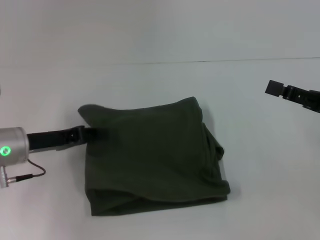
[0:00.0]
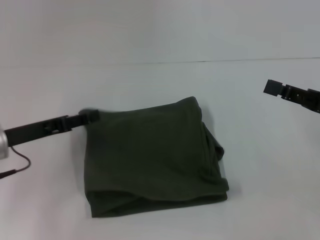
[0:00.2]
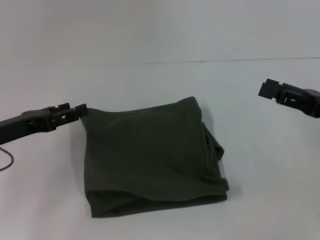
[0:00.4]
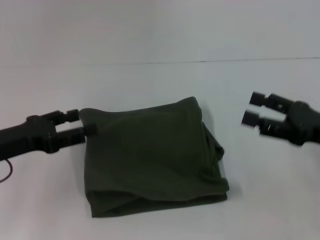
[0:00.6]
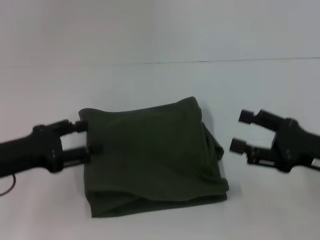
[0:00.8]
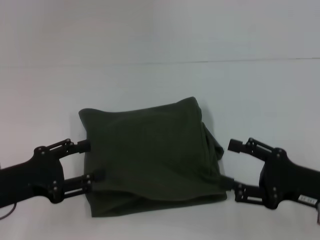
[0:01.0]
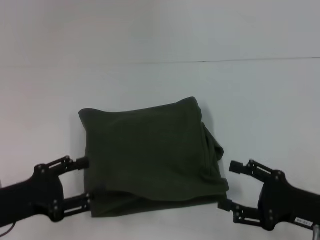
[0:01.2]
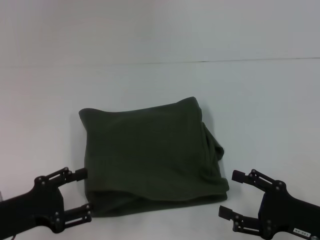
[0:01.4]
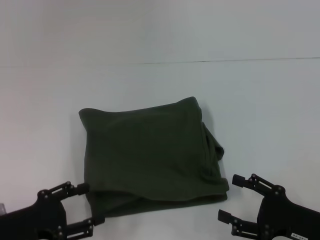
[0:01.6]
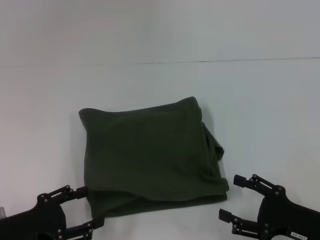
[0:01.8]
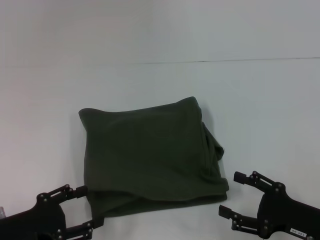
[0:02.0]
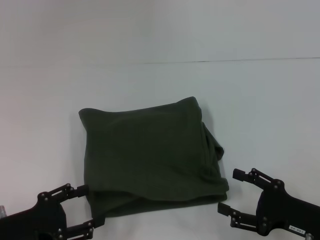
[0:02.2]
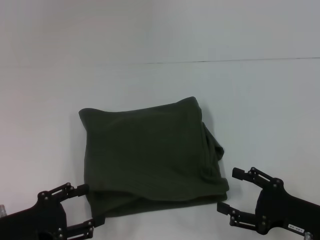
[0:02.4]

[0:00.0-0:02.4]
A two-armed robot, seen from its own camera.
0:00.0 to 0:01.2: The right gripper moves downward, backward and to the left, roughly 15 cm. The left gripper is displaced backward by about 10 cm, and opens.
0:01.2 to 0:02.4: The grippers make only small movements.

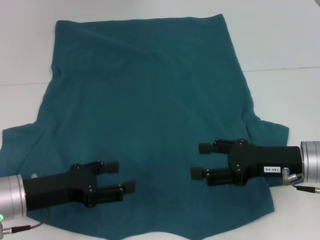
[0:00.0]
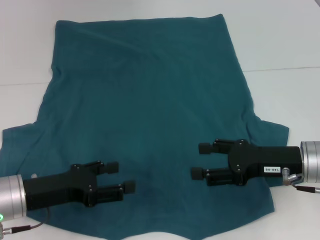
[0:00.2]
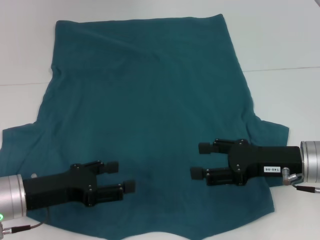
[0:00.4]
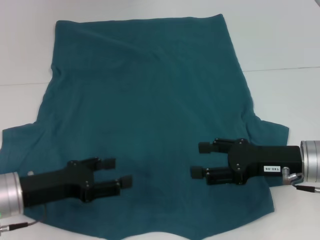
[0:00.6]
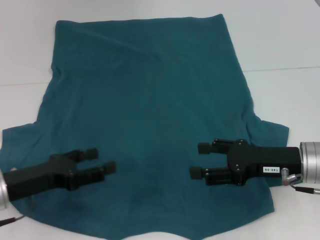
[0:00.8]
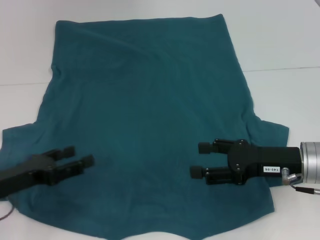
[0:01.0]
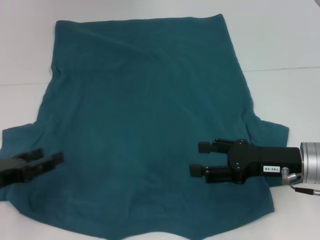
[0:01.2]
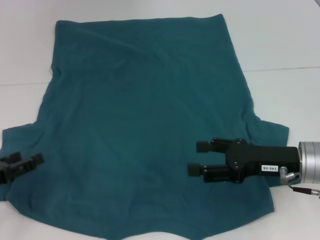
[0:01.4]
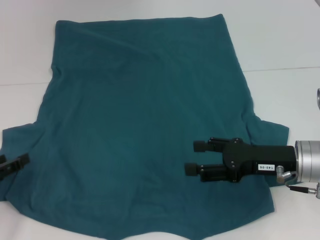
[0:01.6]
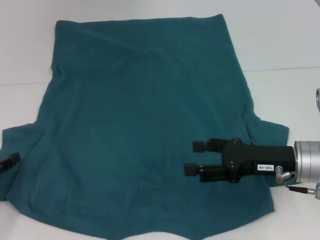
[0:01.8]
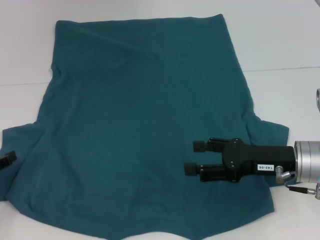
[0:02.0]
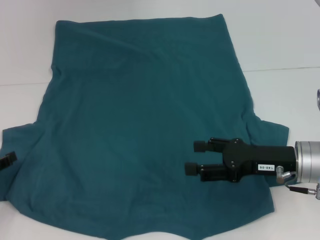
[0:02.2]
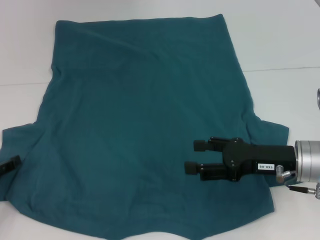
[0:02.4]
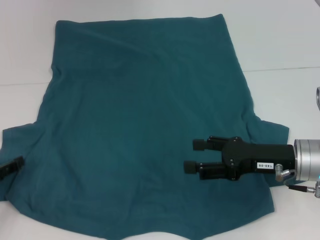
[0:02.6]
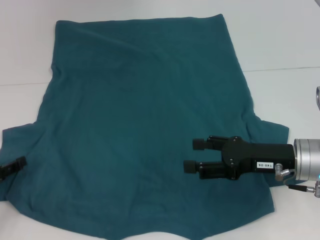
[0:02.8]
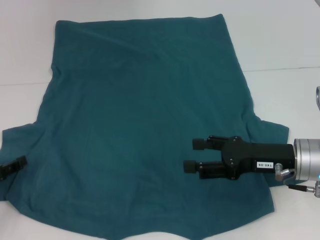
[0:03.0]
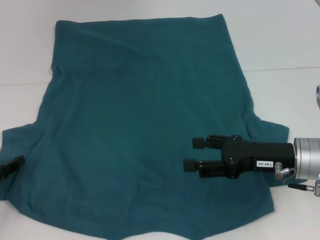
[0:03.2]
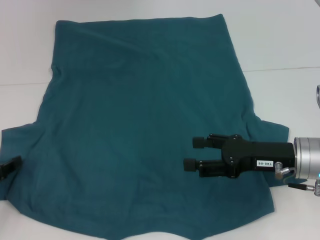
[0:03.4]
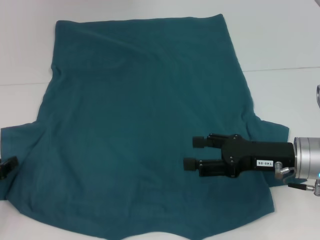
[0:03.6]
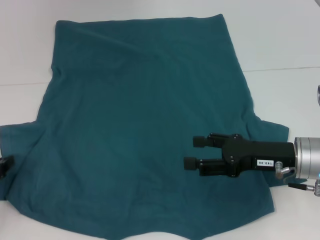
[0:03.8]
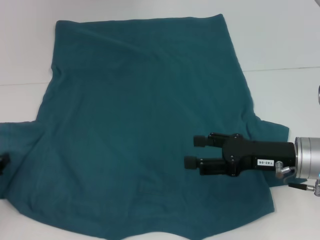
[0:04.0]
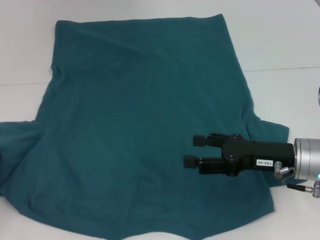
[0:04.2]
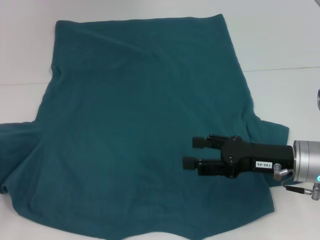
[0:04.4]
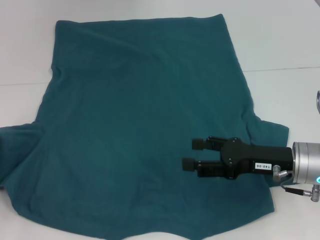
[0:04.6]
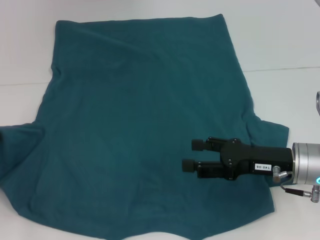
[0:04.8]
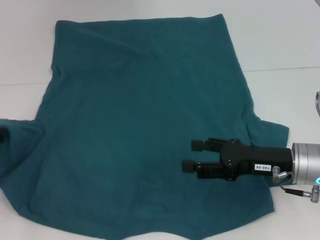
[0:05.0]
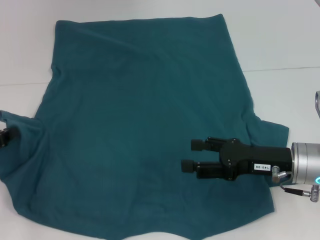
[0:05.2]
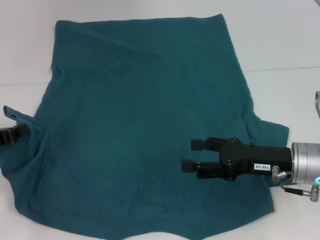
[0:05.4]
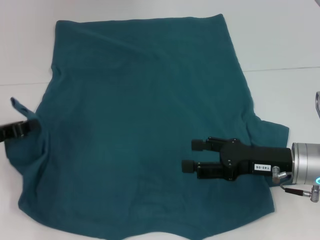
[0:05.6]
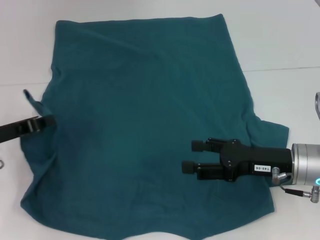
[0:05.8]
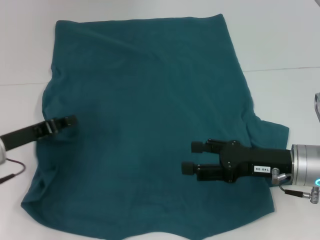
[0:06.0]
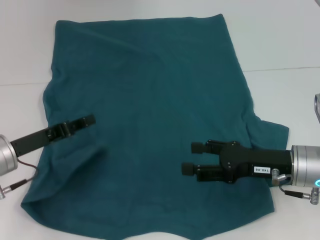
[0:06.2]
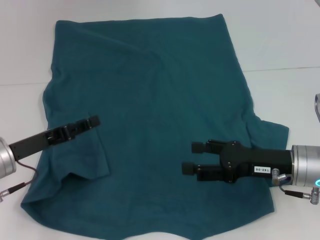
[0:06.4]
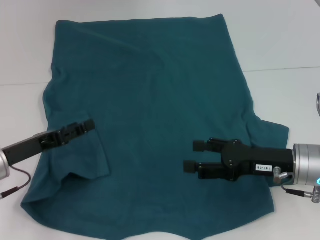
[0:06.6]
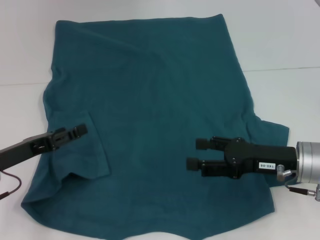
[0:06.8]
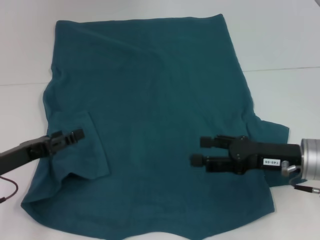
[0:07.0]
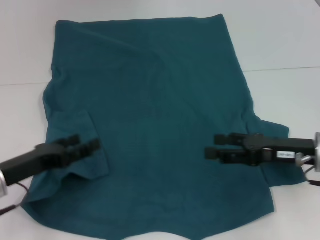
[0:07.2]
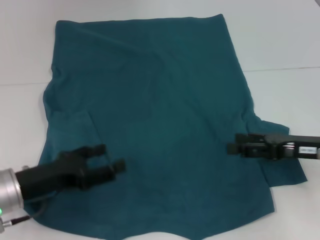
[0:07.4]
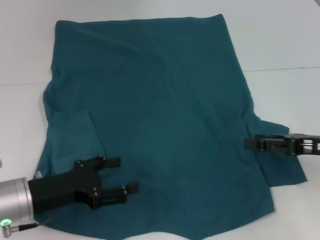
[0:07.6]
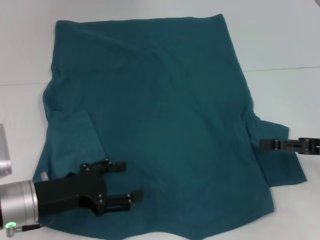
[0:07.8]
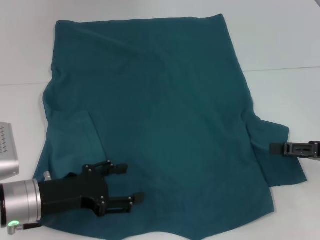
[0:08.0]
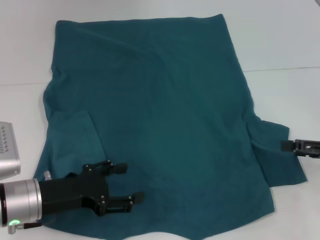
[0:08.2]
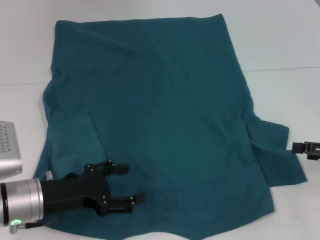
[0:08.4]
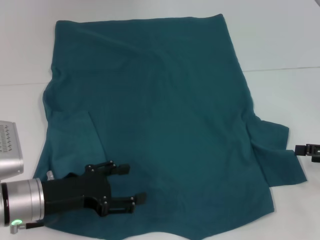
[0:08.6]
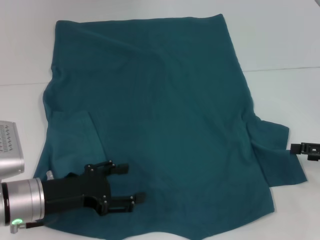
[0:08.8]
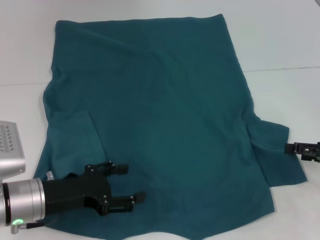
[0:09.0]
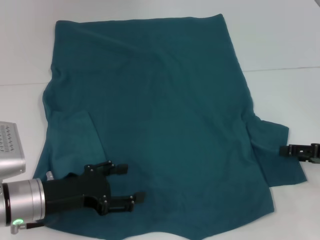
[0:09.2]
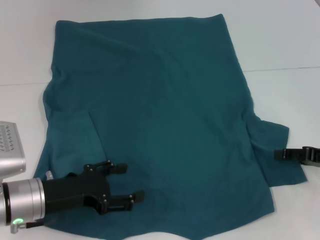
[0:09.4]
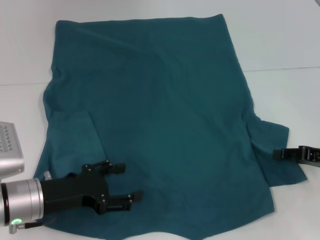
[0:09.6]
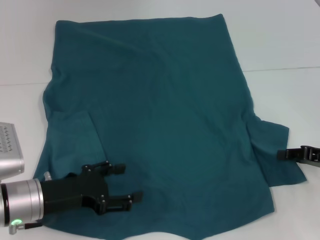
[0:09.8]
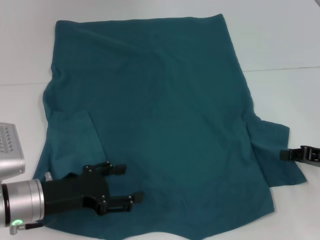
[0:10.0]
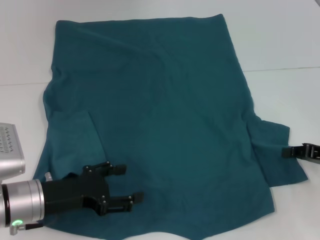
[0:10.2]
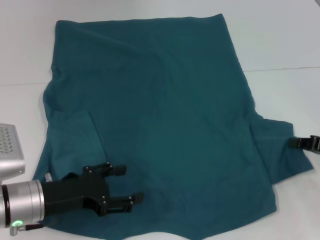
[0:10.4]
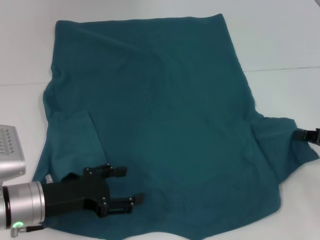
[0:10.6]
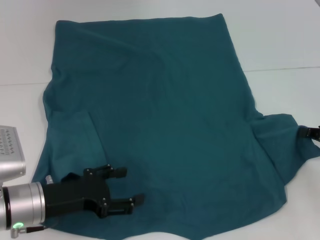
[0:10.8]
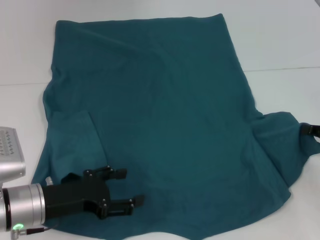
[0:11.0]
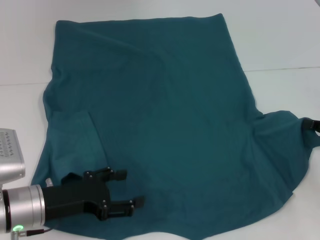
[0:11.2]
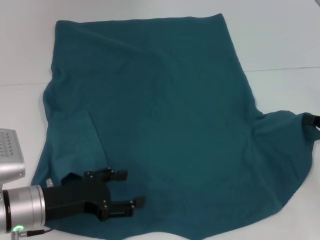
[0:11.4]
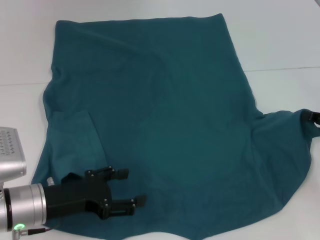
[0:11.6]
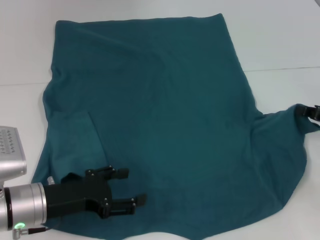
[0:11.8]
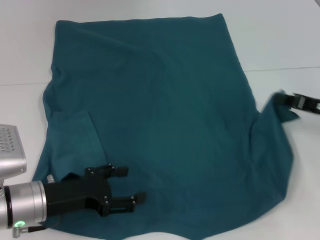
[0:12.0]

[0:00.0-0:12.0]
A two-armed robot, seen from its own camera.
Step, 0:00.0 to 0:06.2: Fold the bottom left sleeve with your left hand.
0:00.0 to 0:01.6: The left gripper goes about 10 cm to the left.
0:01.6 to 0:03.0: The grippers stay close to where they were, moving slightly.
0:03.0 to 0:04.4: The left gripper closes.
0:04.4 to 0:06.0: The left gripper heads to the right, covering some 10 cm.
0:06.0 to 0:07.6: The left gripper travels backward by approximately 5 cm, and opens its fingers; the right gripper travels to the right by roughly 10 cm.
0:07.6 to 0:09.0: The right gripper goes about 5 cm to the right.
0:09.0 to 0:10.4: The right gripper closes its fingers.
0:10.4 to 0:12.0: The right gripper changes place by about 5 cm.

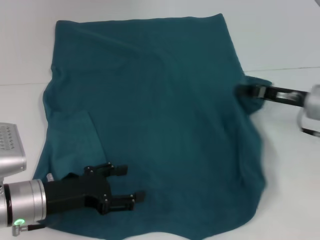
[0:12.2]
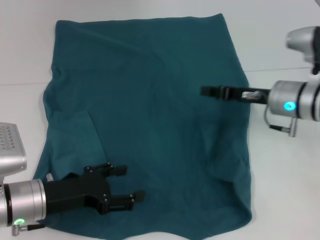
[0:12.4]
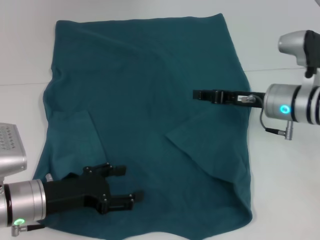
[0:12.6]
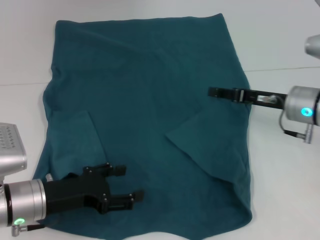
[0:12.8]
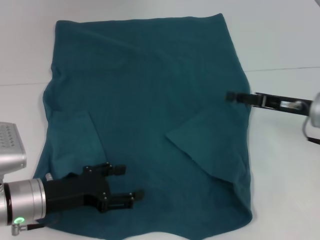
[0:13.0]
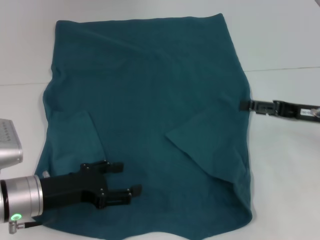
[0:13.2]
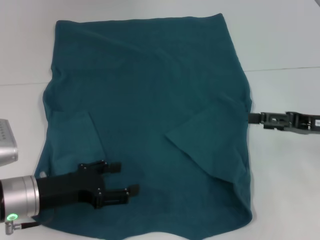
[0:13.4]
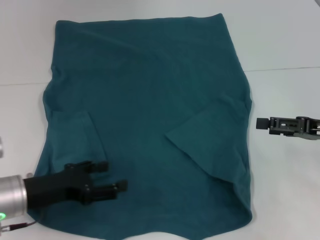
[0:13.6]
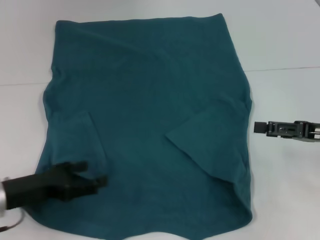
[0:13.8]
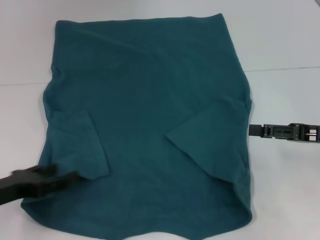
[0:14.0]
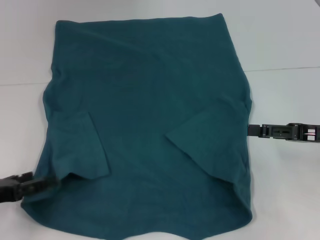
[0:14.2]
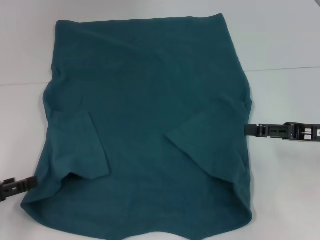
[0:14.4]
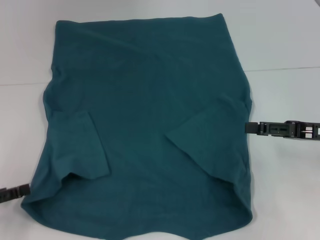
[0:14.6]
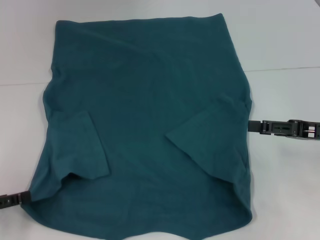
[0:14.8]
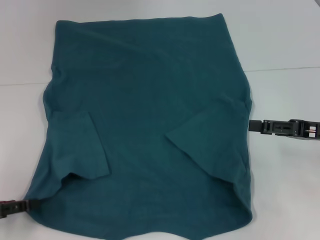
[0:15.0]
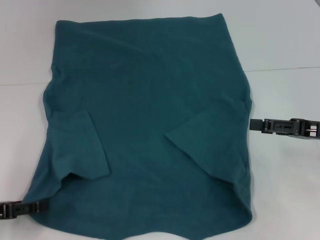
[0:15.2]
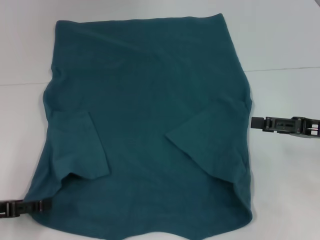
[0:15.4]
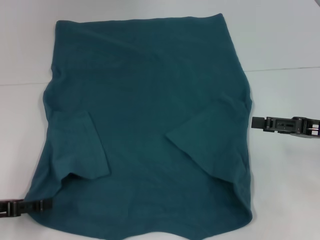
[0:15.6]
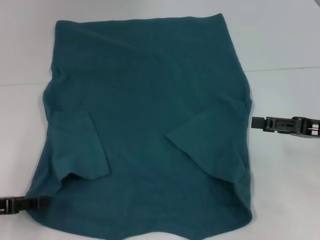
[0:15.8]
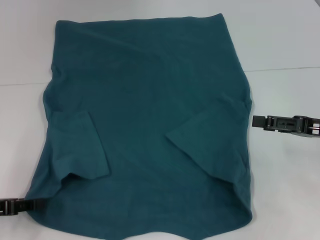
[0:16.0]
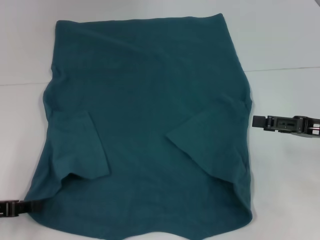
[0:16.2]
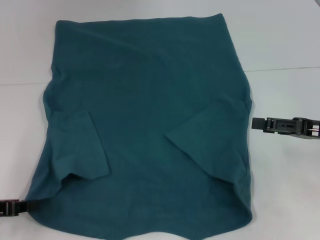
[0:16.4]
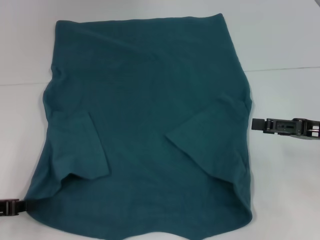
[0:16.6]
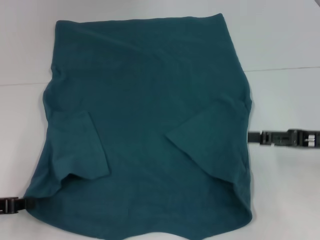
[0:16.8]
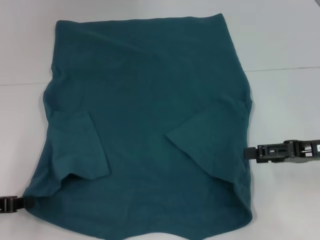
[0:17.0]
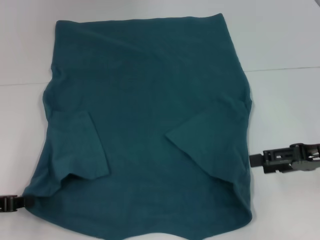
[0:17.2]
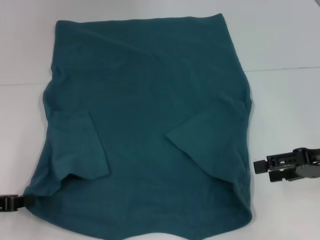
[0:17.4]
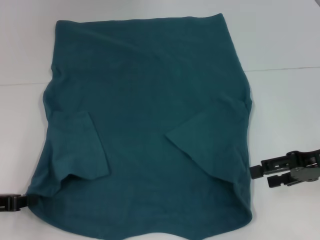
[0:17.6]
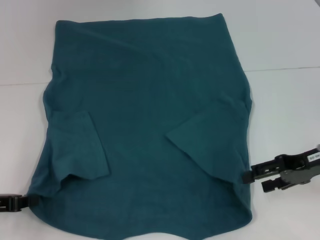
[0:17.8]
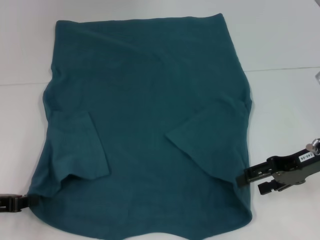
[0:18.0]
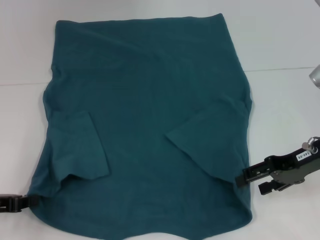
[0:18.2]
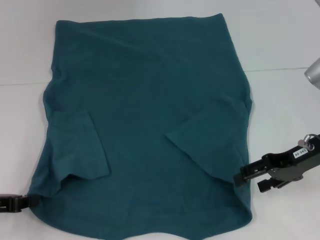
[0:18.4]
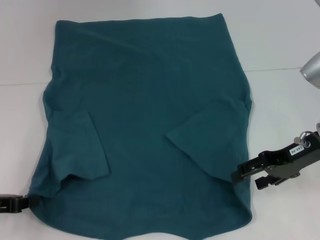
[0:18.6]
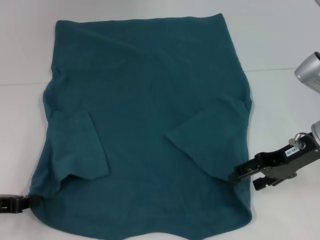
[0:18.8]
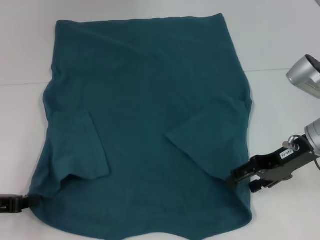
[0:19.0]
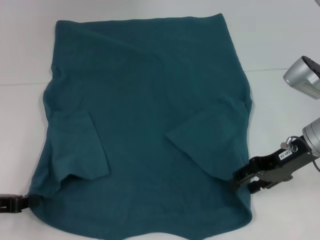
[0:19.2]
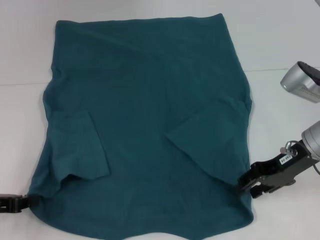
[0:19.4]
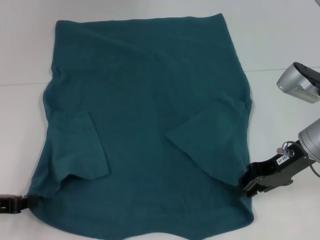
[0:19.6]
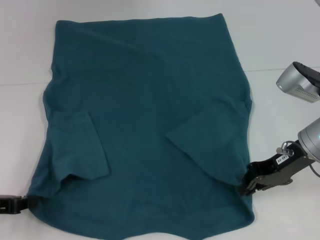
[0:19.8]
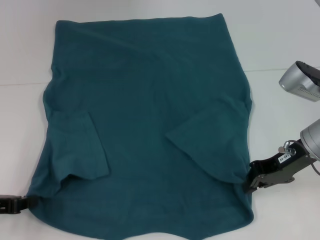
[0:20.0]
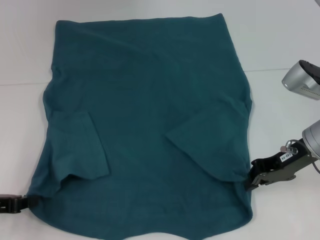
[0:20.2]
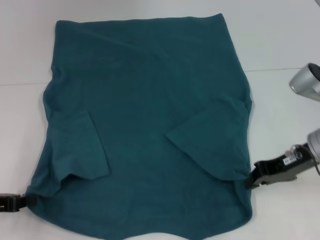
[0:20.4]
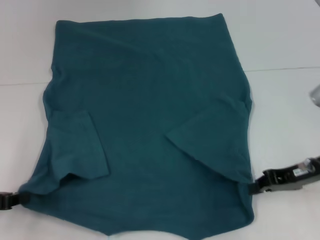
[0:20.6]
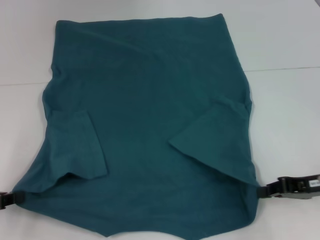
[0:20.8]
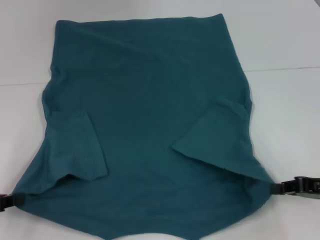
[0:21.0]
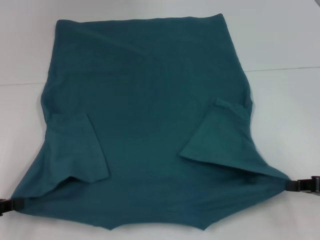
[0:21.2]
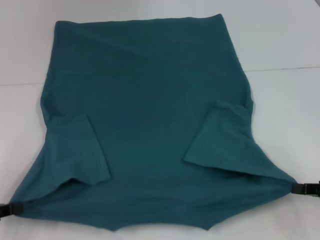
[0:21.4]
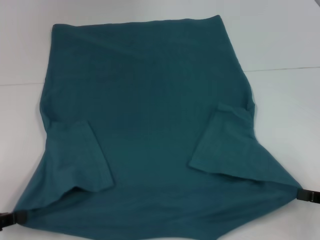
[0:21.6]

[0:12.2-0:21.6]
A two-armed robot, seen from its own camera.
Step, 0:12.6 to 0:16.6: Grab the bottom left corner with your left hand.
Step, 0:16.8 to 0:19.8: Grab the bottom right corner with your right hand.
0:12.2 to 0:13.8: The right gripper goes roughly 10 cm backward and to the right, and opens.
0:13.8 to 0:15.4: The left gripper moves to the left, about 5 cm.
0:15.4 to 0:17.0: The left gripper closes up.
0:17.0 to 0:18.4: The right gripper shifts by roughly 5 cm.
0:18.4 to 0:20.0: The right gripper closes its fingers.
0:20.0 to 0:21.6: The right gripper goes approximately 20 cm backward, to the right and downward.
